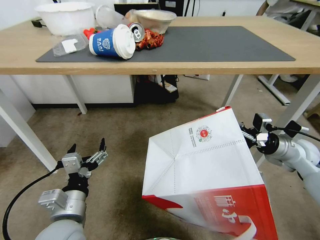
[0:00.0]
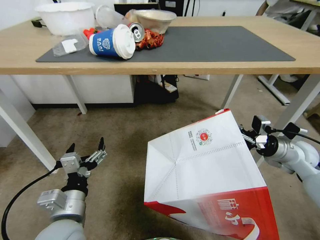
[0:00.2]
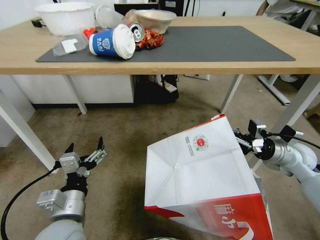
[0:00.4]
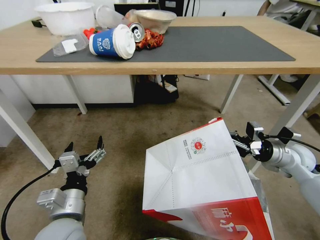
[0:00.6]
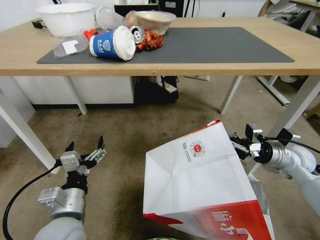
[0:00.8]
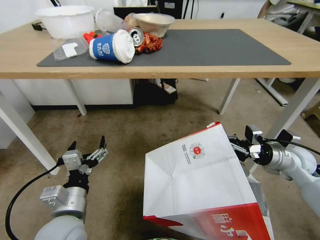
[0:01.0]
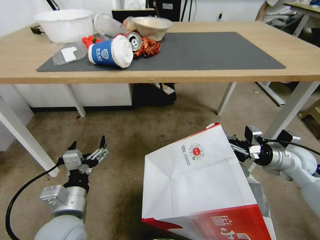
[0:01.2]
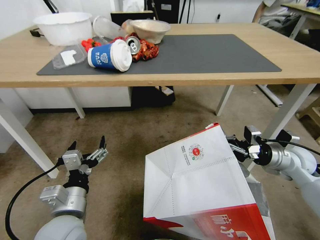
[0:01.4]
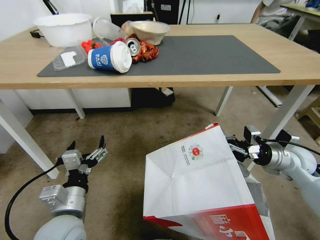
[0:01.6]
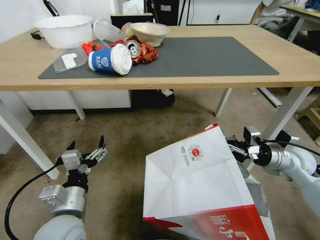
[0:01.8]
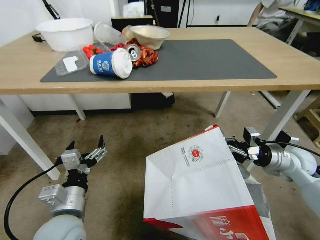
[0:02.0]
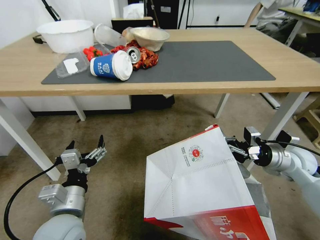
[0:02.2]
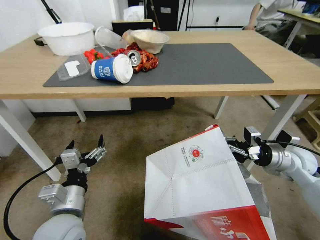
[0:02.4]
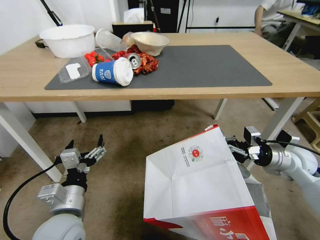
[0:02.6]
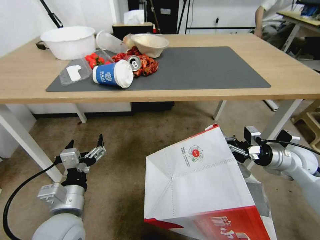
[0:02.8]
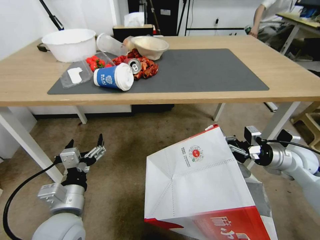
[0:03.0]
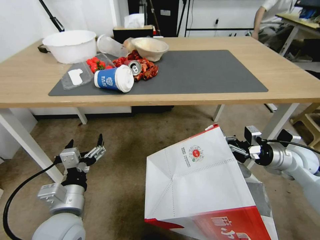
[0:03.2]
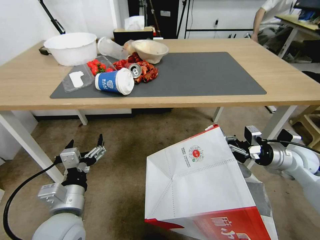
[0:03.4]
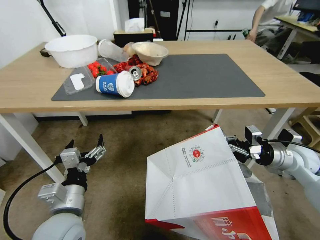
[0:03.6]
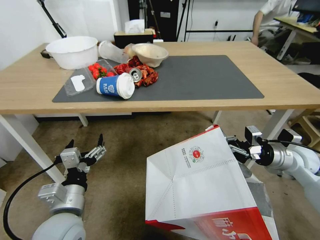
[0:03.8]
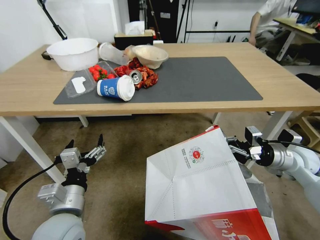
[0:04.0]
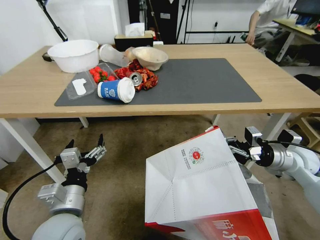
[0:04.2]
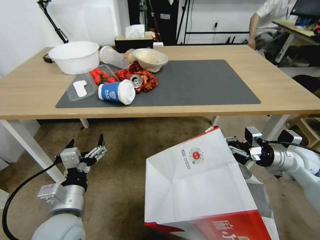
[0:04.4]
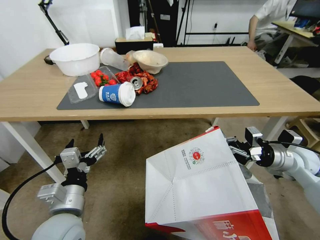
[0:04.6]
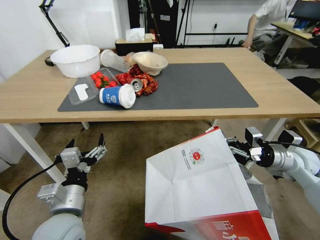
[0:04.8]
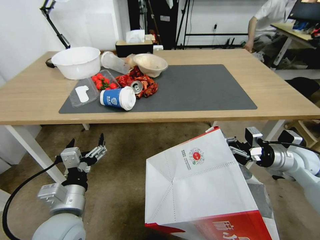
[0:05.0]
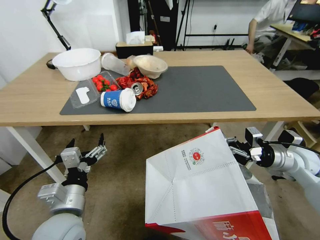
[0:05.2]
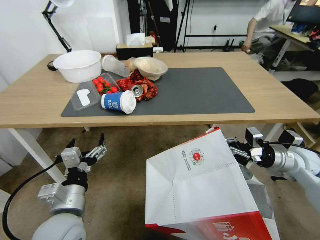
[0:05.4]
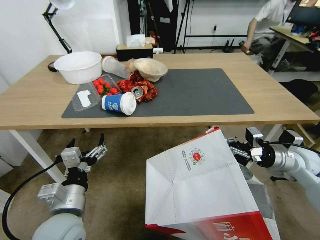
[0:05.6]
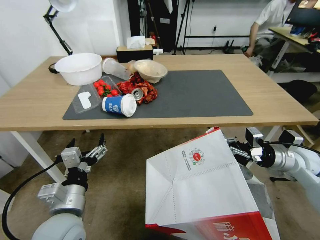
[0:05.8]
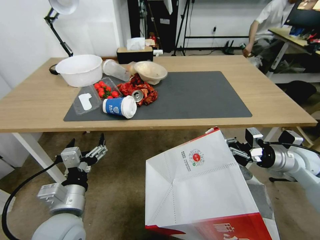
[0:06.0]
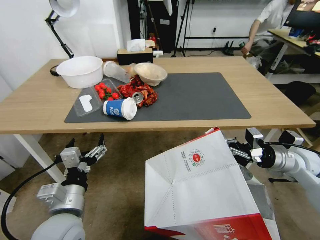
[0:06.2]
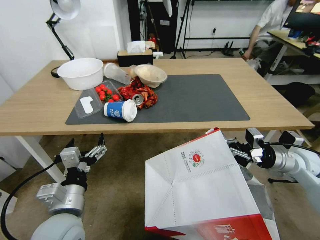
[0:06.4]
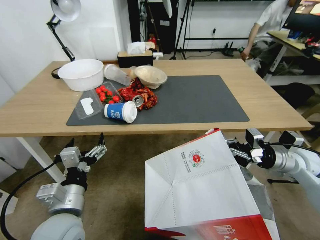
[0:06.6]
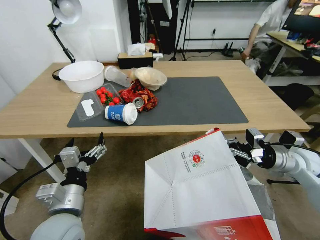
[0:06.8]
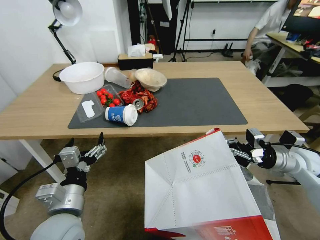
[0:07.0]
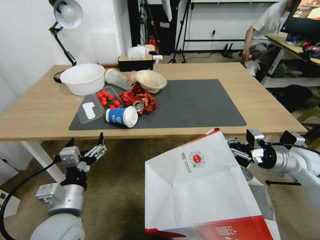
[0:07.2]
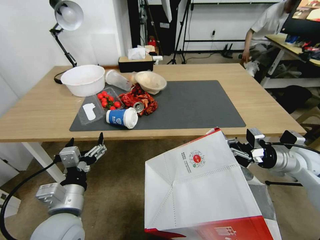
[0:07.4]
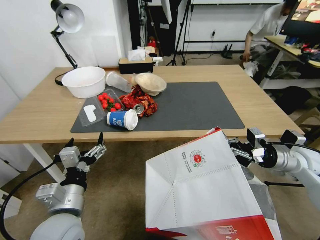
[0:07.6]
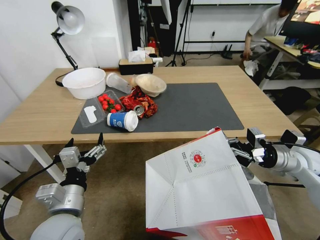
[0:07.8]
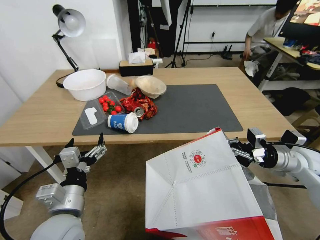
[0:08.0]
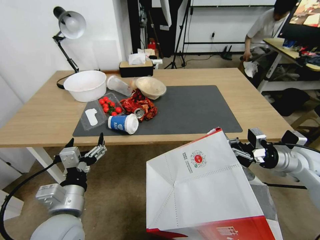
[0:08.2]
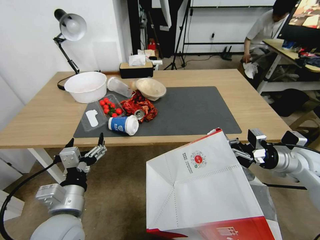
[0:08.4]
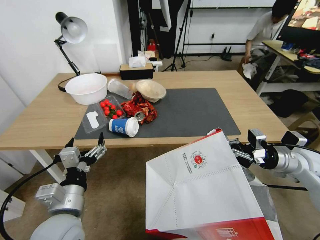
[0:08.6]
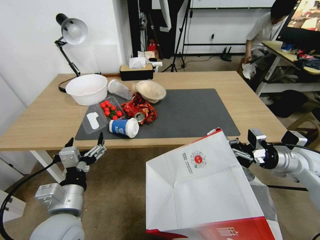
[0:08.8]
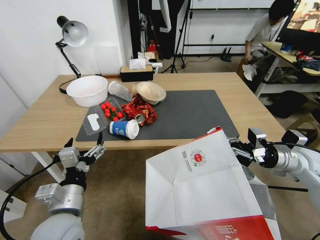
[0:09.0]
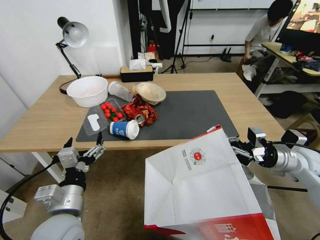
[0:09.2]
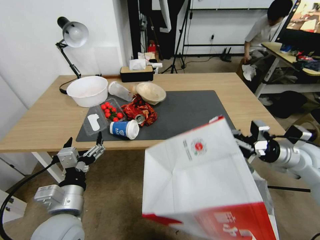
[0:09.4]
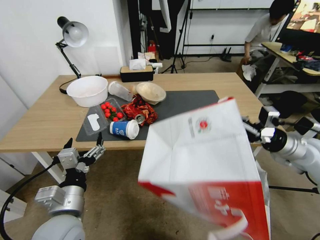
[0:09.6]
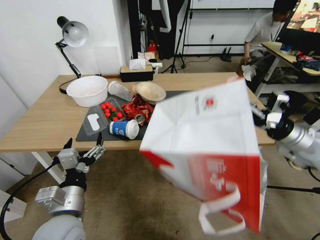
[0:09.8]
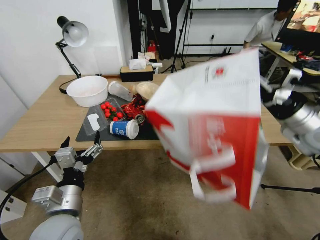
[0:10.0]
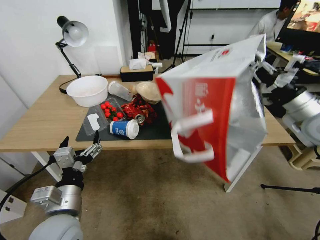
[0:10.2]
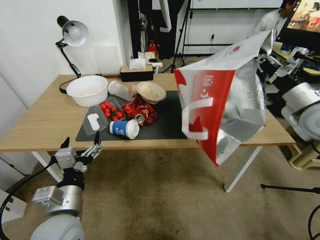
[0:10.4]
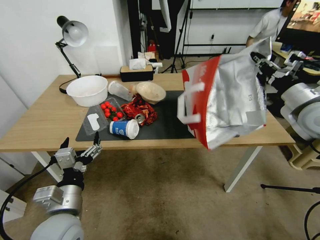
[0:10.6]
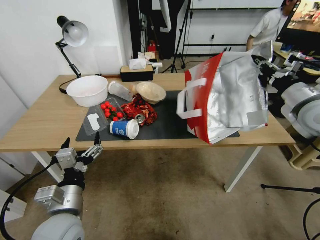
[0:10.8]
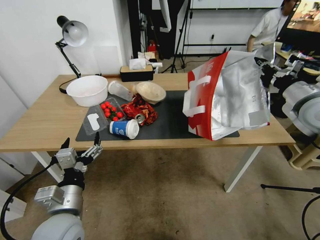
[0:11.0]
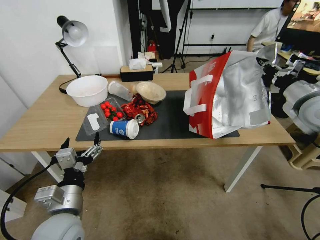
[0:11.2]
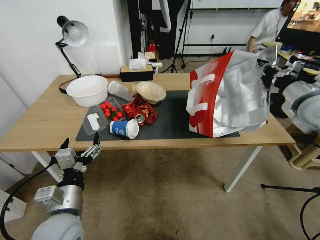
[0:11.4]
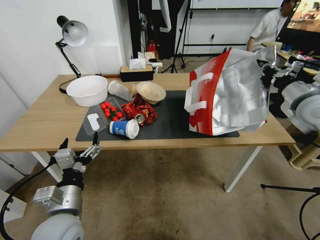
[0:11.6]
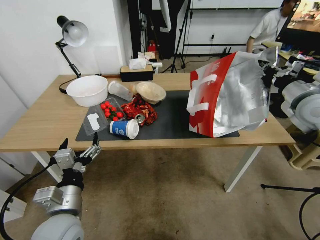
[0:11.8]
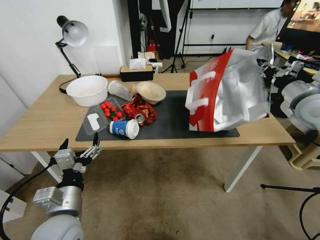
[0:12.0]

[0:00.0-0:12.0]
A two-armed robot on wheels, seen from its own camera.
Task of the whole recording: Pick up the food delivery bag from the floor and place it on the table.
9.0 to 10.4 s: The right gripper travels upward by some 15 cm.

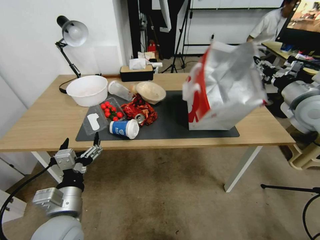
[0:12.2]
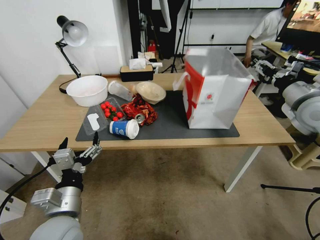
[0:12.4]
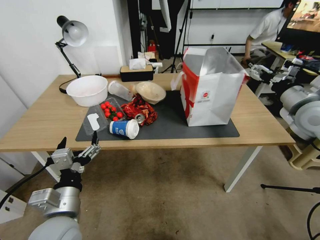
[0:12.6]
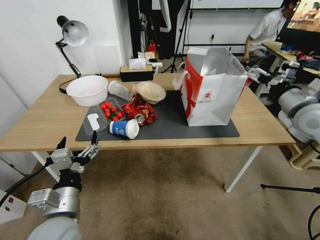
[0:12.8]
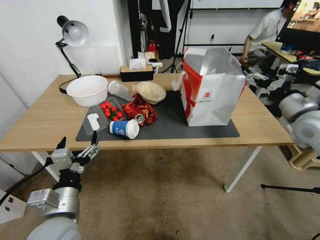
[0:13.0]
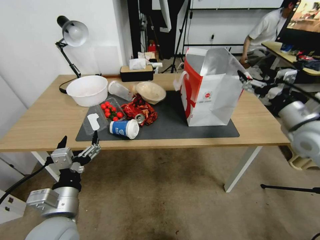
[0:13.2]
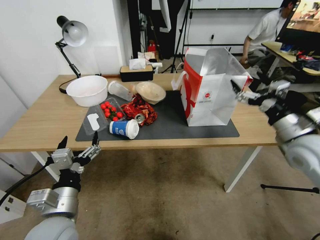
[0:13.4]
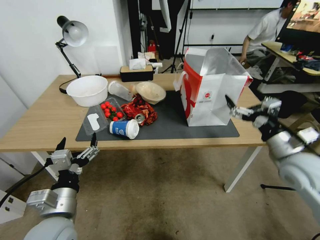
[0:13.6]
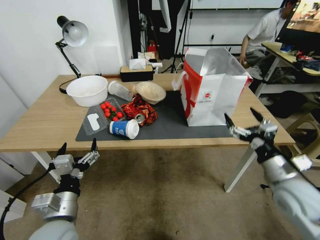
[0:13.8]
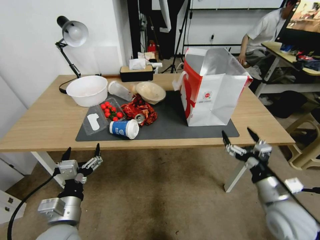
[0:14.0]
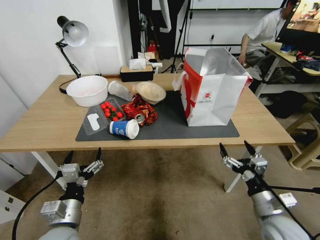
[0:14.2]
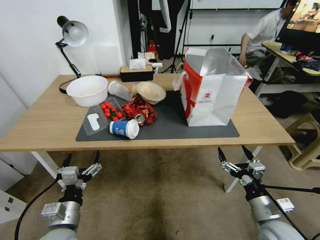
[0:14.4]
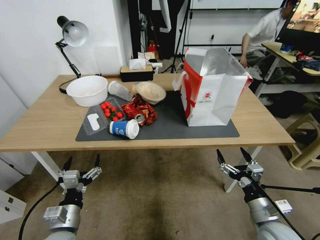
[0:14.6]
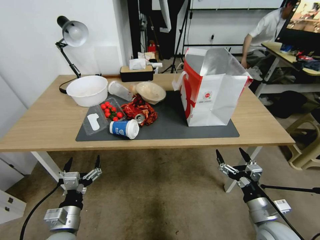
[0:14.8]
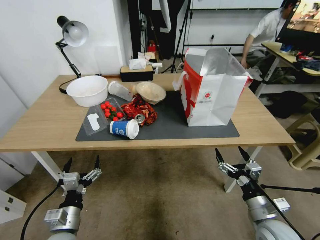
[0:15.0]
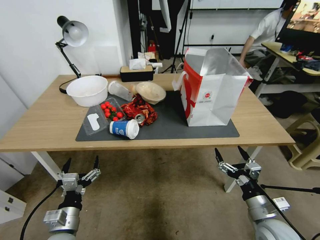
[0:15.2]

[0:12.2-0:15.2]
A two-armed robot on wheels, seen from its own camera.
Task of the whole recording: Pick up the food delivery bag from the floor and place it on the table.
12.2 to 13.8 s: The right gripper is displaced downward and backward by roughly 20 cm, and opens.
13.8 to 15.2 s: The left gripper travels downward by about 10 cm. Meanwhile the right gripper is displaced downward and backward by approximately 15 cm.

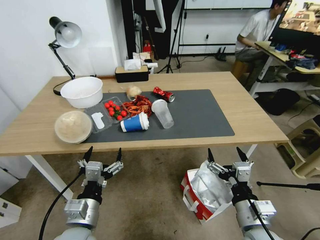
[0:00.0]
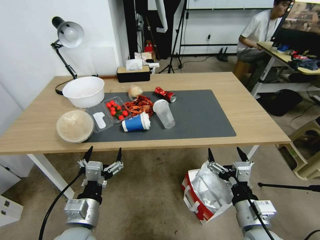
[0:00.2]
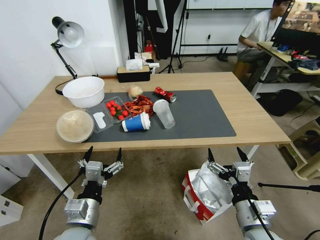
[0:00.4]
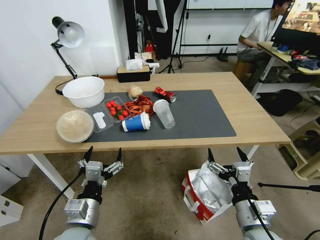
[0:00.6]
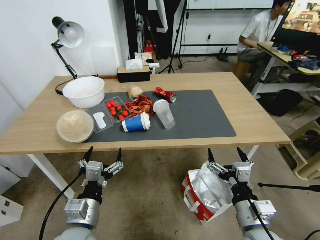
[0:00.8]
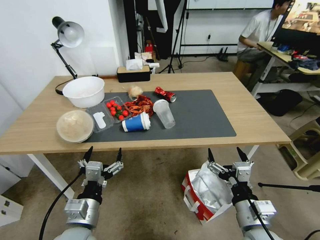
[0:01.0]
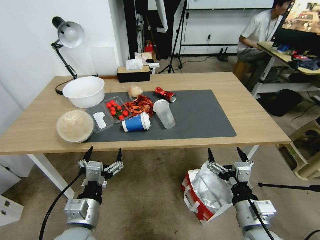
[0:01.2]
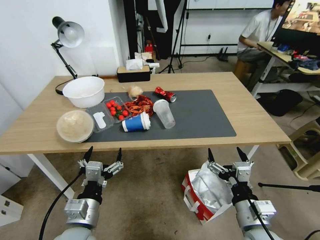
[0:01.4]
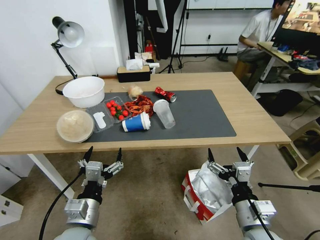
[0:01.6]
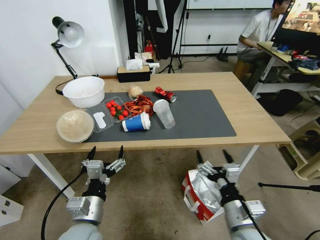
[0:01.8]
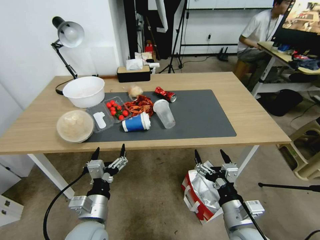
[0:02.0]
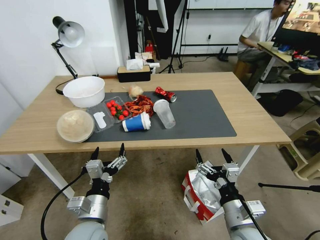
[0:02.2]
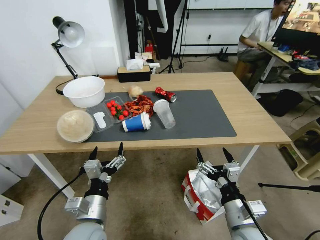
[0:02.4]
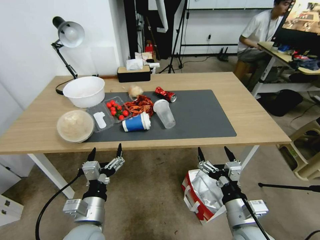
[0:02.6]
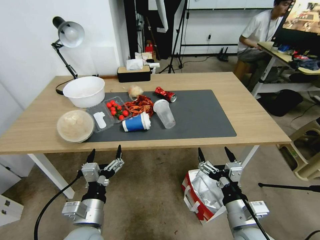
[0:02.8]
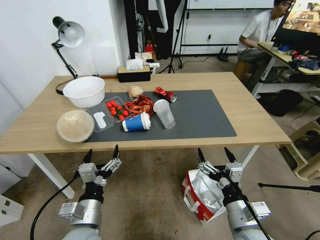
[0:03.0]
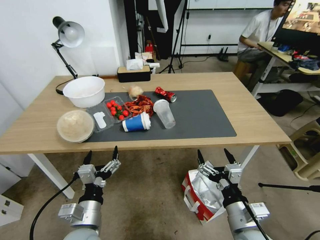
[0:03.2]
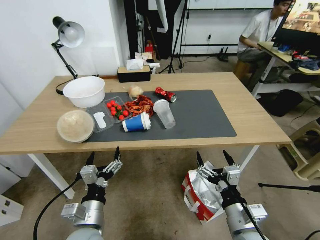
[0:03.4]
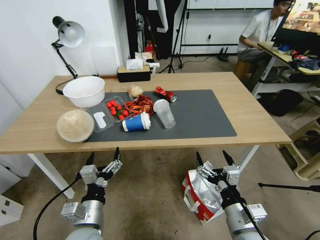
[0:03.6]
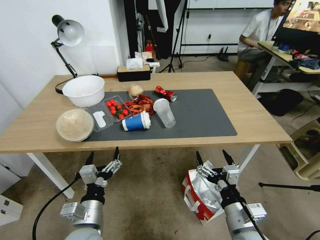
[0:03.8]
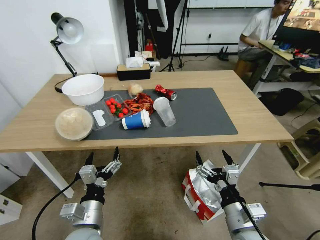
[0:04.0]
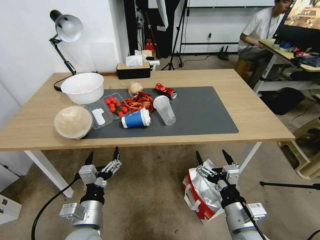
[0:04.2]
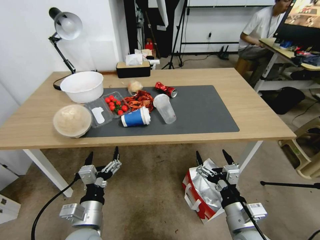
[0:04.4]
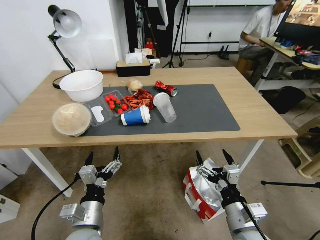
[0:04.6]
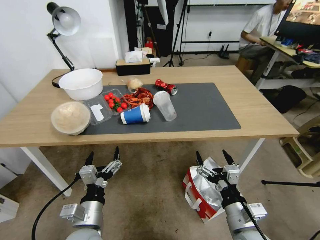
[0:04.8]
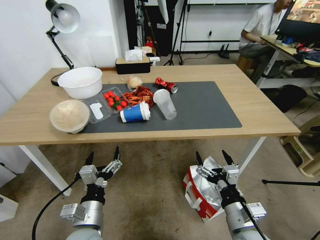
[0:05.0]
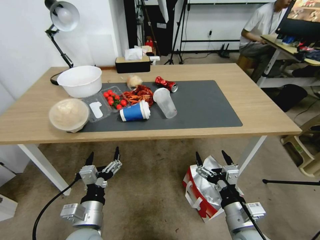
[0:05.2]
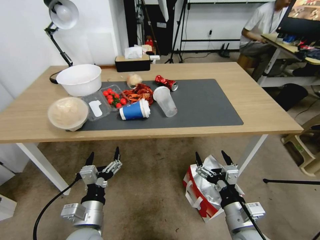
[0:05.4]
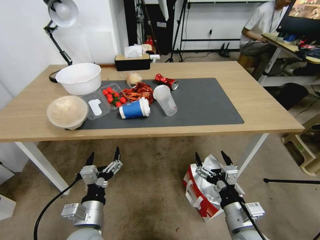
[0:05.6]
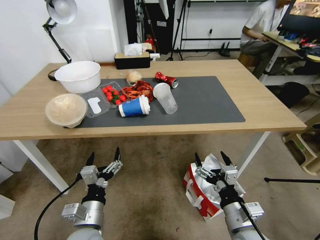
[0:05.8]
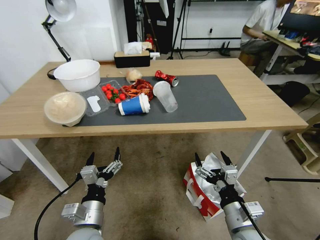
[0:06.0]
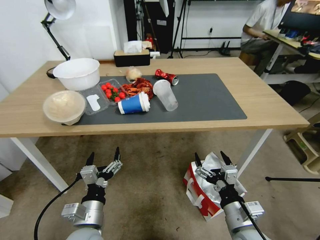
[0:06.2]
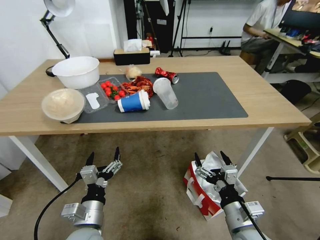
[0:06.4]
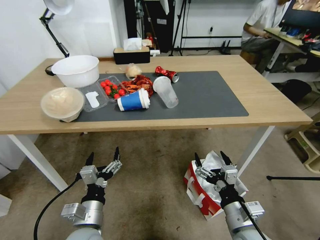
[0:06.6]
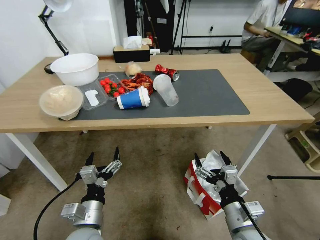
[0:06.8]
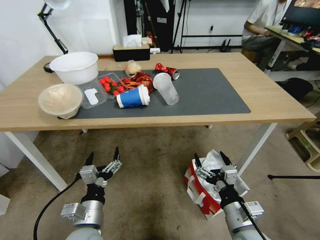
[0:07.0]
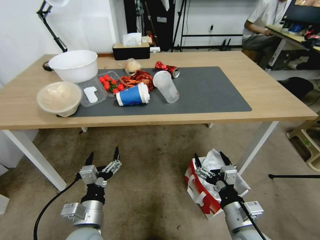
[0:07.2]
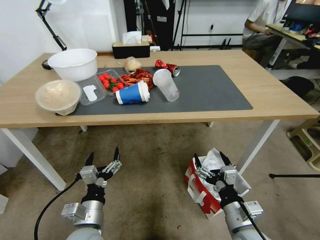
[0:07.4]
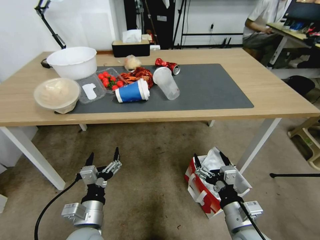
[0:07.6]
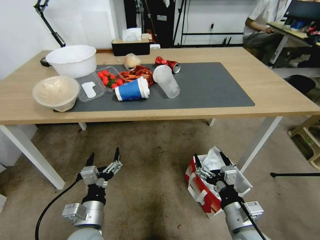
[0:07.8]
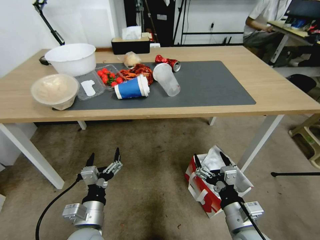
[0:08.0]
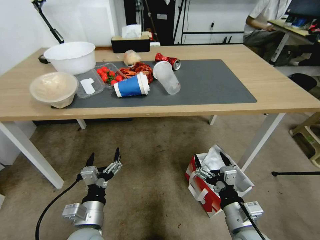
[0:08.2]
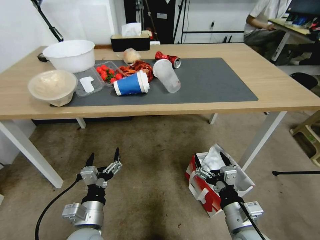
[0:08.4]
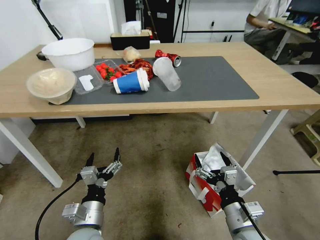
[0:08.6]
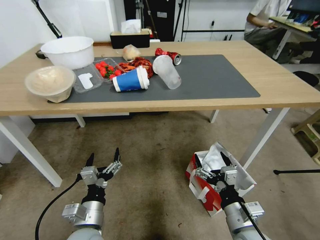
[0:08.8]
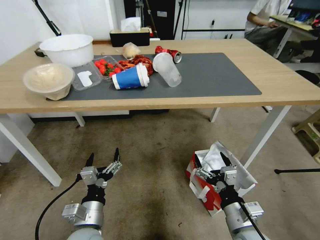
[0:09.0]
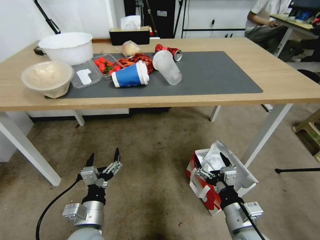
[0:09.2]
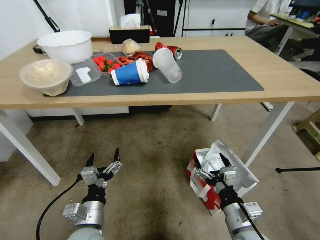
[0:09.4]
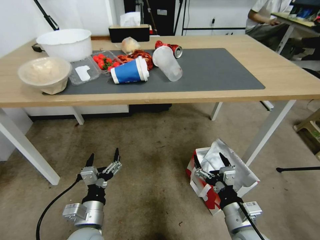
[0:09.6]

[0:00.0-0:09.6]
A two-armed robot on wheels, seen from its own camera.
Task of the whole recording: Pick up the food delivery bag from the floor and place it on the table.
1.6 to 3.2 s: The grippers stay close to where they were, moving slightly.
